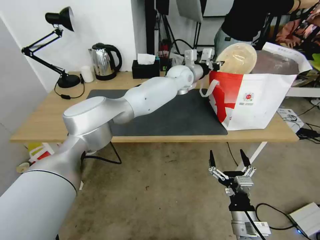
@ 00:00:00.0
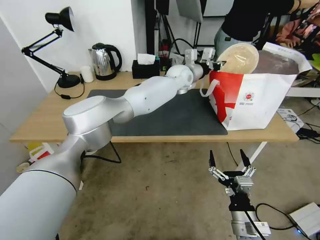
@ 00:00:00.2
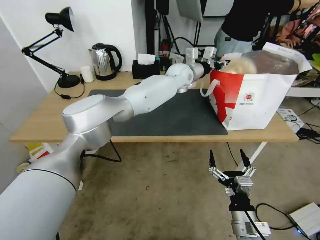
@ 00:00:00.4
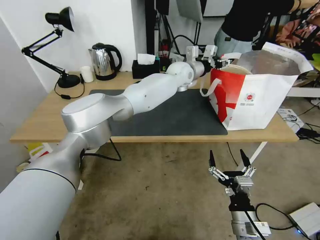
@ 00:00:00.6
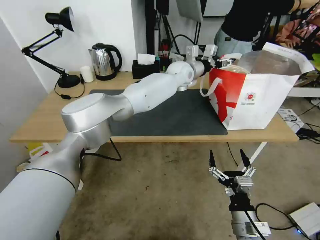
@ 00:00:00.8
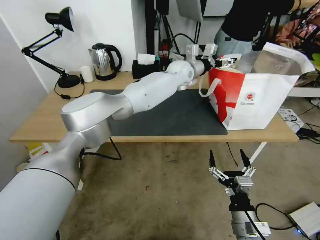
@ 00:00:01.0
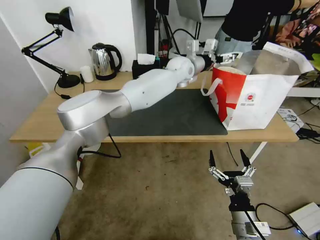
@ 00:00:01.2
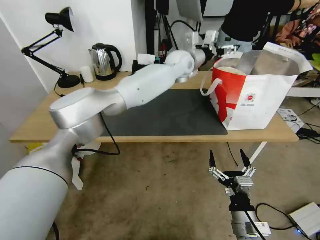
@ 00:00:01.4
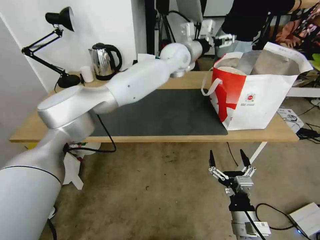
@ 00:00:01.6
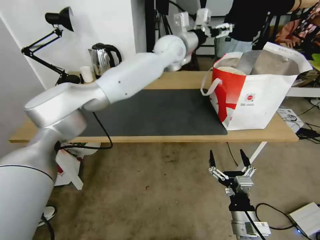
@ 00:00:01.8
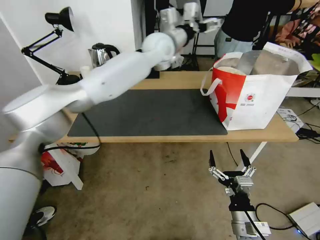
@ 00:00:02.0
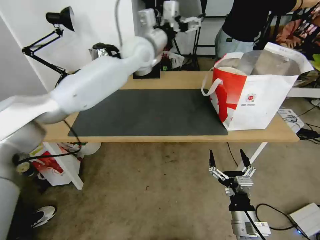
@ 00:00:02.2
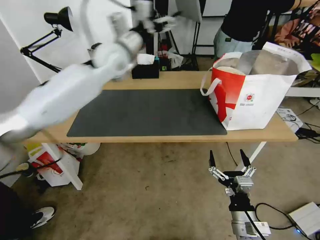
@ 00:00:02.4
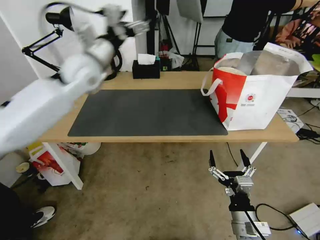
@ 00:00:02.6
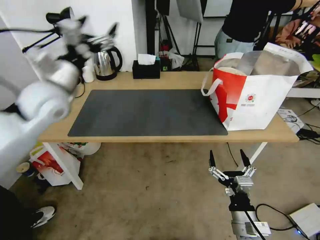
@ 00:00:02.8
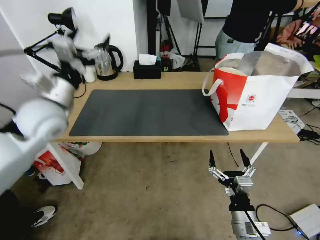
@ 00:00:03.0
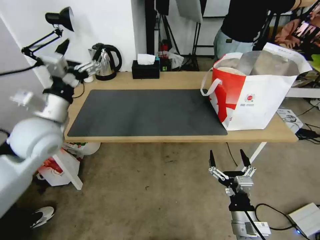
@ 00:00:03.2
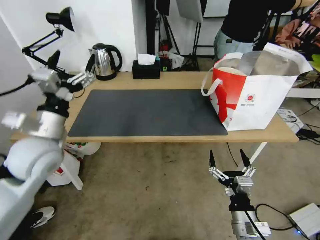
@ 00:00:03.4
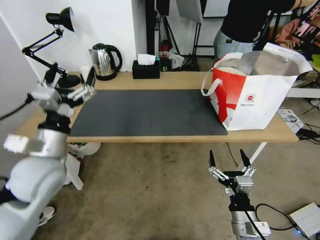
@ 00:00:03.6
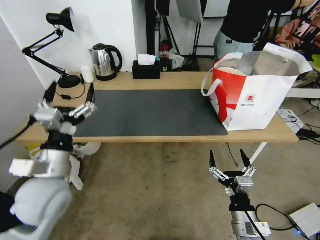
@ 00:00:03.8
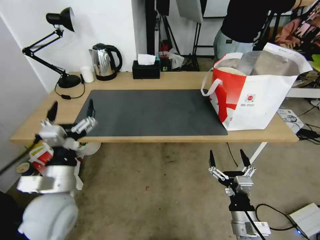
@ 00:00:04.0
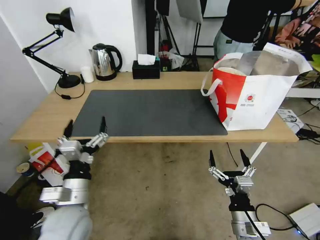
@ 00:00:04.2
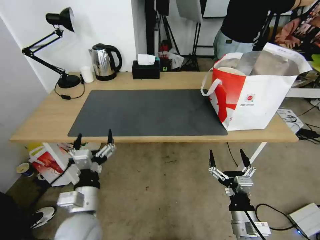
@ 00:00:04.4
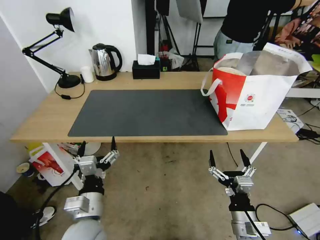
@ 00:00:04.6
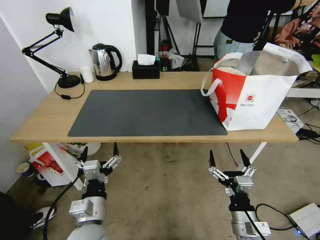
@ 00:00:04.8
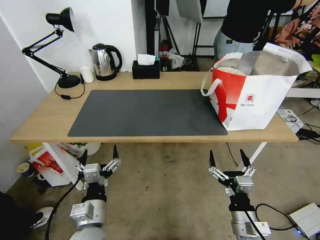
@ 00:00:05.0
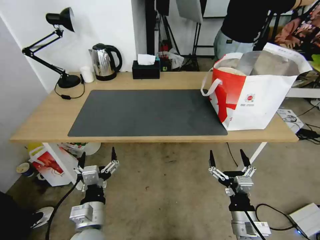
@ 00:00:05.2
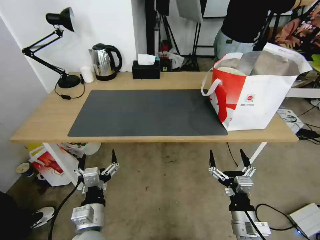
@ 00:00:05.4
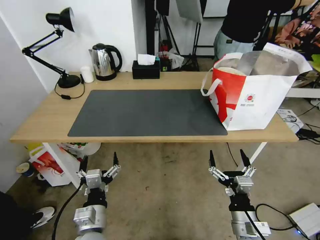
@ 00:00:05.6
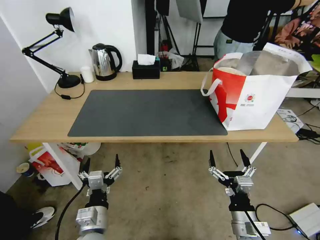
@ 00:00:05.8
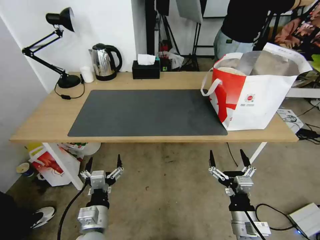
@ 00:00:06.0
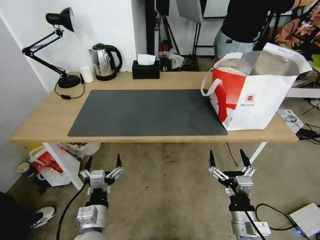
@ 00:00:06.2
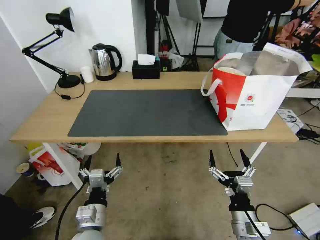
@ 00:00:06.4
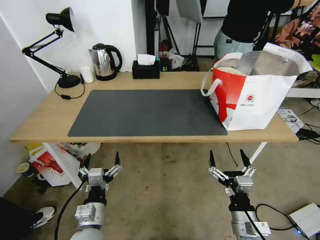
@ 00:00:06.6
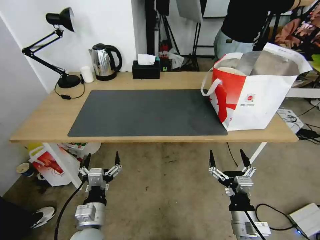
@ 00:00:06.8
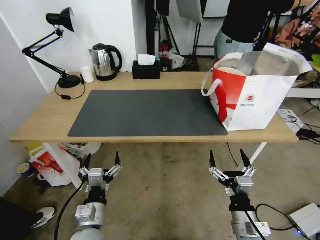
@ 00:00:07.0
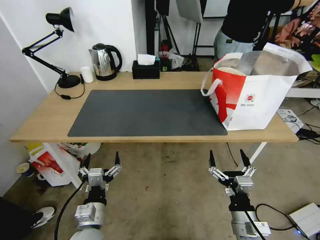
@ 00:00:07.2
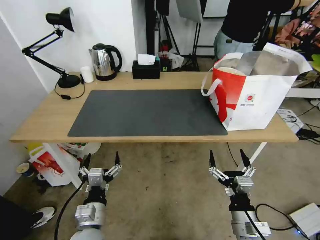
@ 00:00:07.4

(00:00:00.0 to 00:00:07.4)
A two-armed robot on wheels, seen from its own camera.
Task of the whole recording: Pick up the trash from the table and place it into the takeout bag.
00:00:00.0 - 00:00:01.4: The left gripper opens up.
00:00:01.4 - 00:00:03.0: The left gripper moves to the left and backward, approximately 40 cm.
00:00:03.0 - 00:00:04.4: The left gripper shifts approximately 30 cm downward, backward and to the right.
00:00:04.4 - 00:00:06.0: The left gripper goes some 5 cm downward.
00:00:06.0 - 00:00:07.4: The grippers stay close to where they were, moving slightly.
